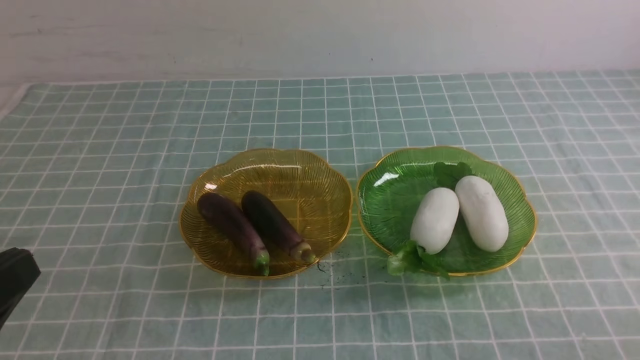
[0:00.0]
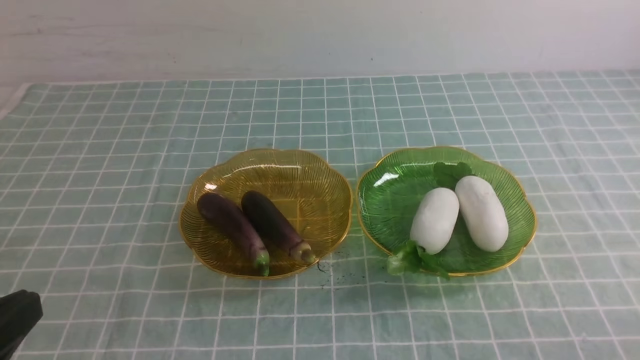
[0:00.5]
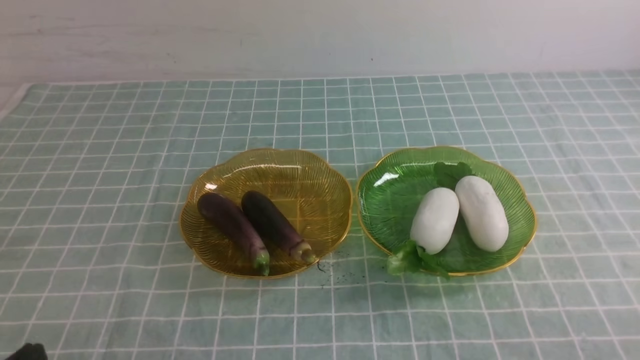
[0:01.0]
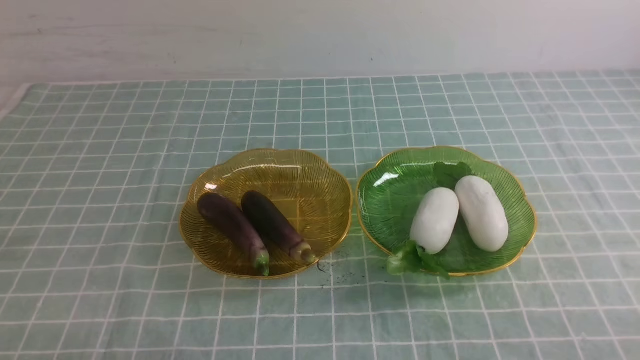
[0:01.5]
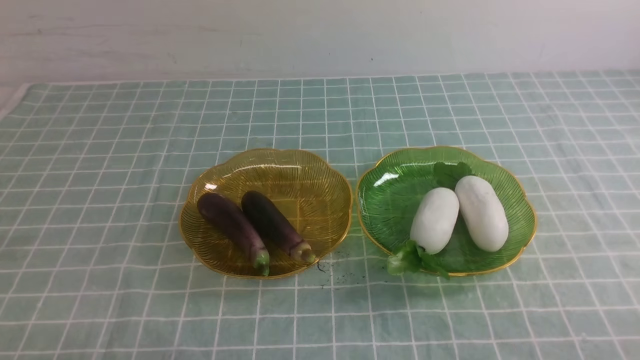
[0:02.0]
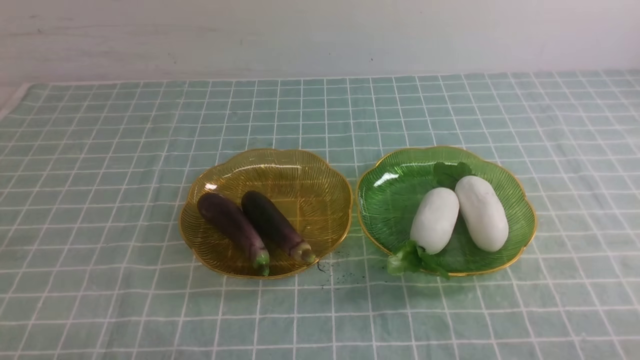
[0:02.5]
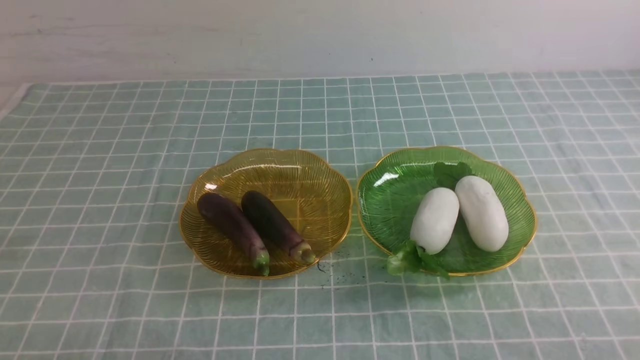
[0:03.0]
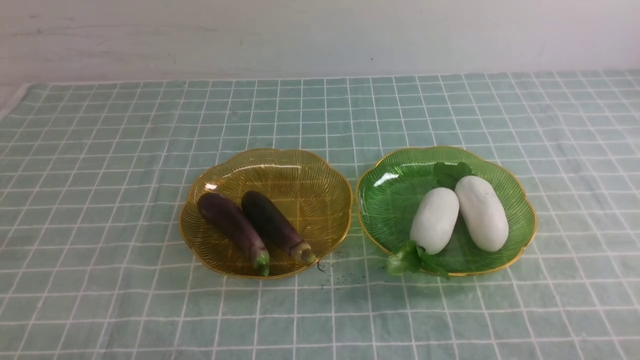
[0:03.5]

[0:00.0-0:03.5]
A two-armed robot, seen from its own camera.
0:00.0 to 0:02.0: The left gripper heads downward, covering approximately 15 cm.
0:02.0 to 0:03.5: The two grippers keep their place.
